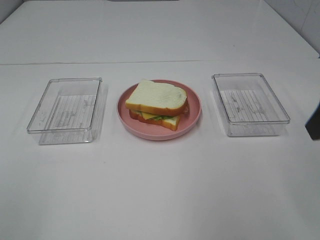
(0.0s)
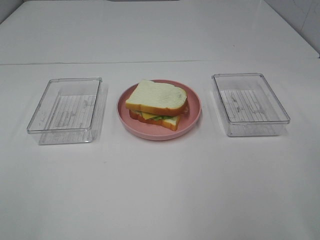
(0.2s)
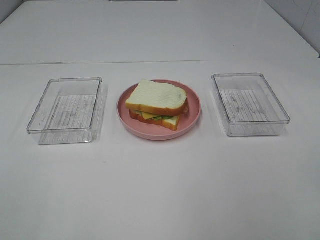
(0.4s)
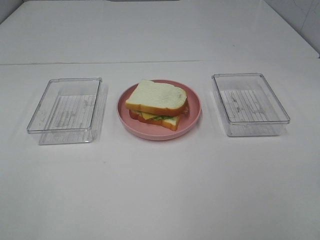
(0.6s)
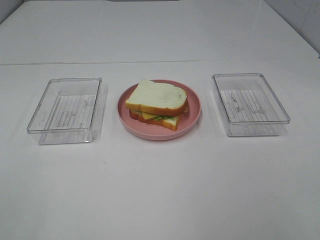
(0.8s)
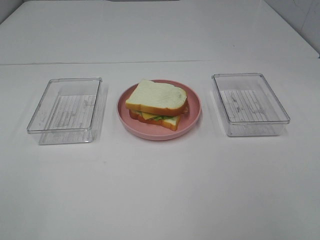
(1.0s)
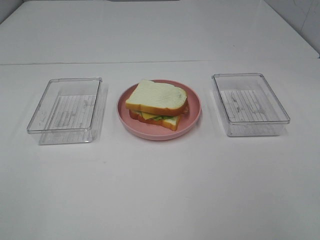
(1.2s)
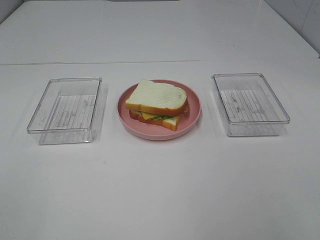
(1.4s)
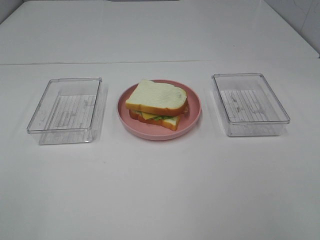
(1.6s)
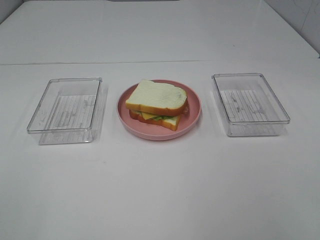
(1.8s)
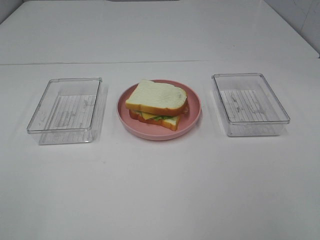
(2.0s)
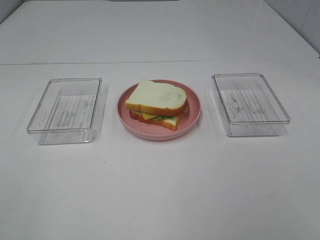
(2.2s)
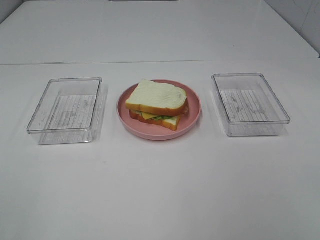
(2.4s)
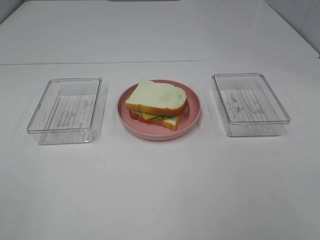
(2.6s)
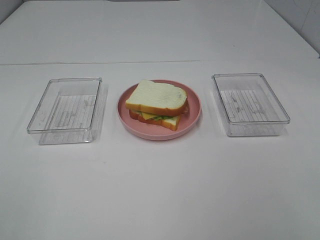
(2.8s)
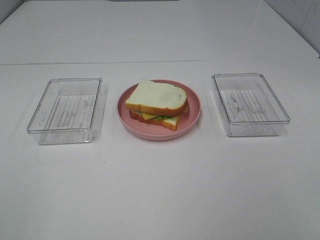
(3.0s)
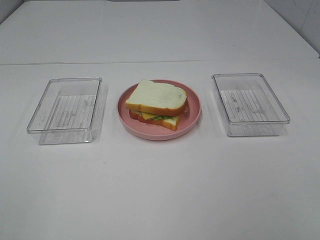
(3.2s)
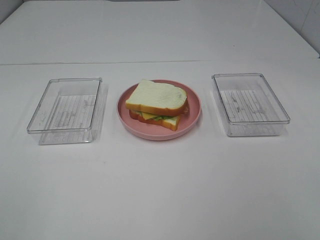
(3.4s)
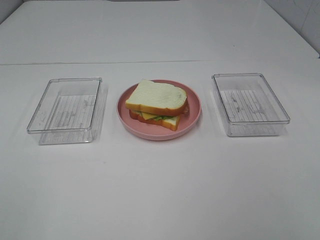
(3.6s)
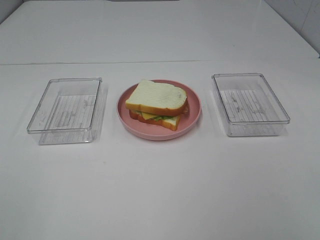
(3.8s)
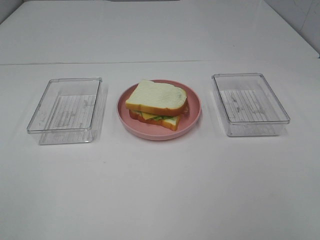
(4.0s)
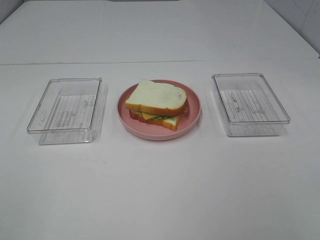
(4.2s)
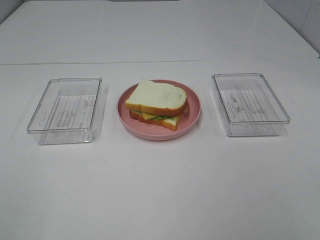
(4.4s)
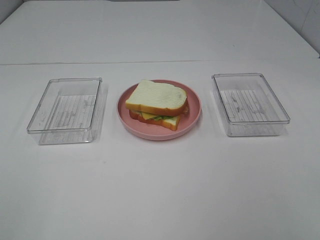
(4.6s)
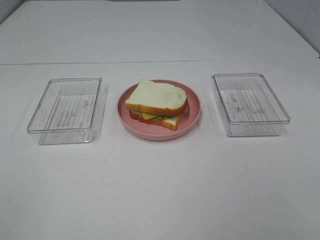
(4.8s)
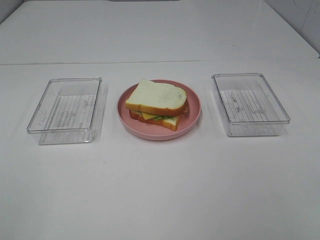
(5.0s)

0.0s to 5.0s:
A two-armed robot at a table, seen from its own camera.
Task of the whole recording: Make sandwiches.
3.4s to 5.0s: The two grippers keep their place.

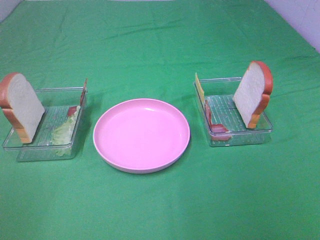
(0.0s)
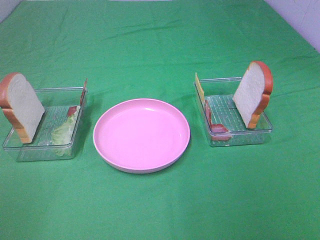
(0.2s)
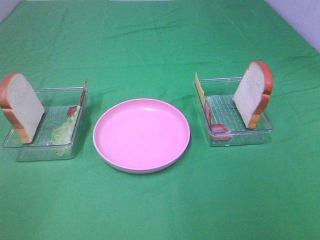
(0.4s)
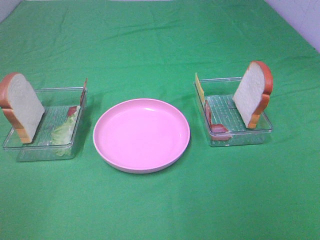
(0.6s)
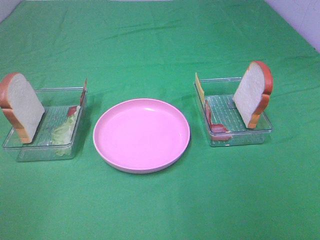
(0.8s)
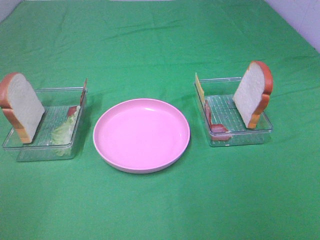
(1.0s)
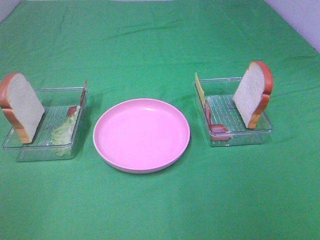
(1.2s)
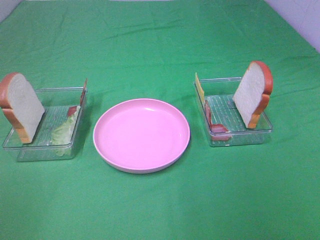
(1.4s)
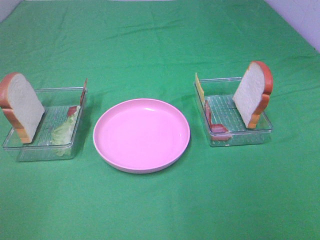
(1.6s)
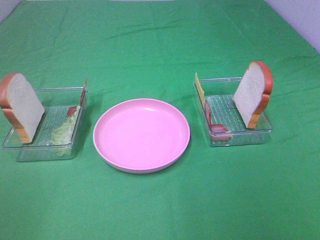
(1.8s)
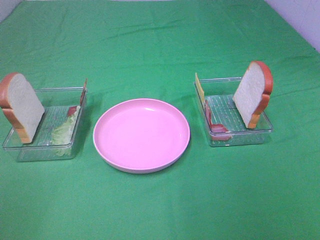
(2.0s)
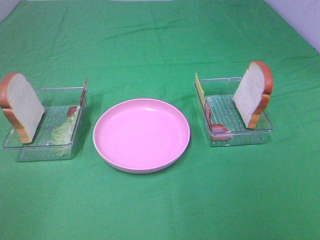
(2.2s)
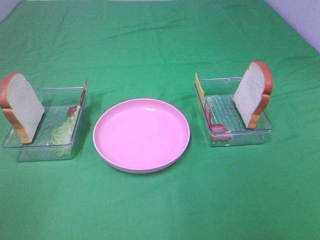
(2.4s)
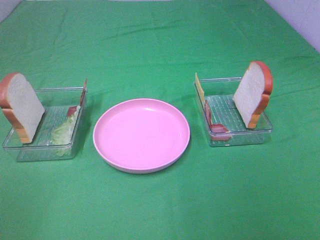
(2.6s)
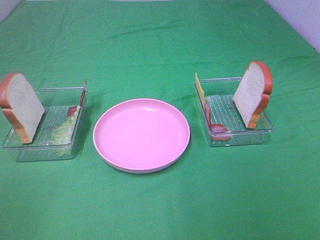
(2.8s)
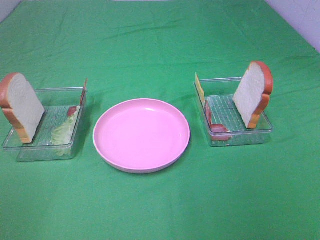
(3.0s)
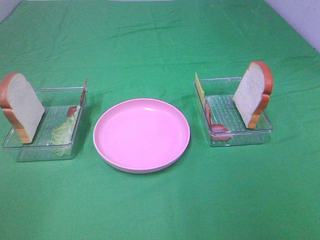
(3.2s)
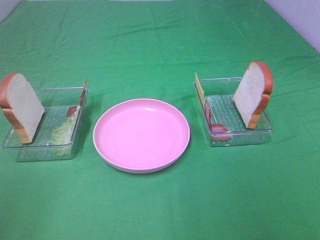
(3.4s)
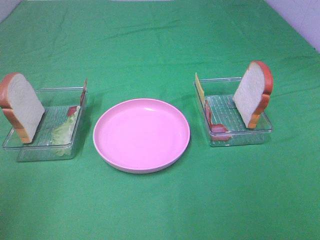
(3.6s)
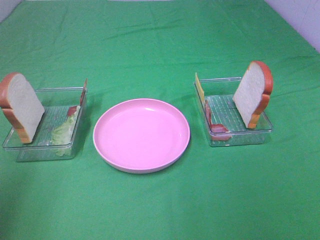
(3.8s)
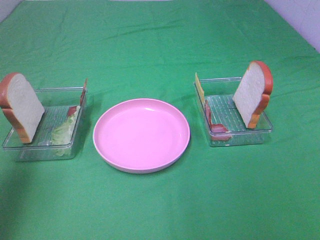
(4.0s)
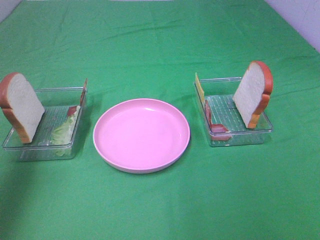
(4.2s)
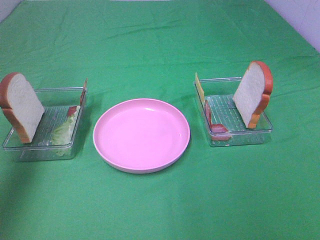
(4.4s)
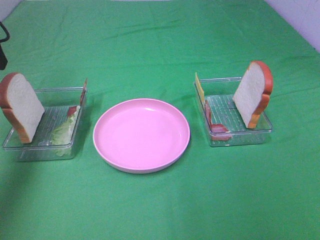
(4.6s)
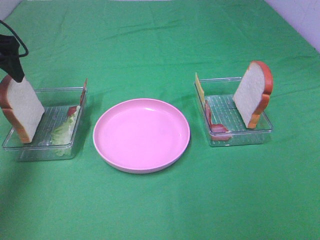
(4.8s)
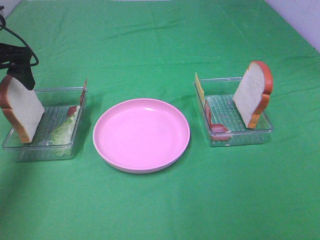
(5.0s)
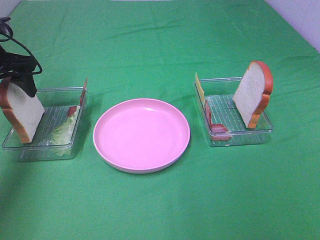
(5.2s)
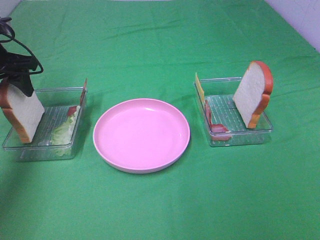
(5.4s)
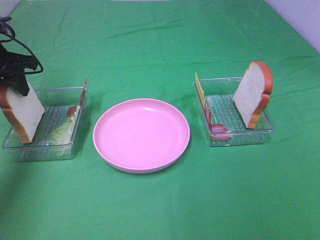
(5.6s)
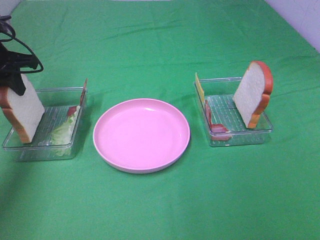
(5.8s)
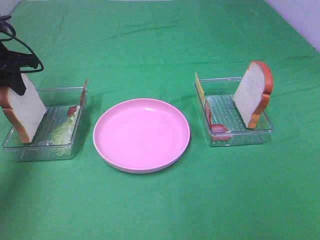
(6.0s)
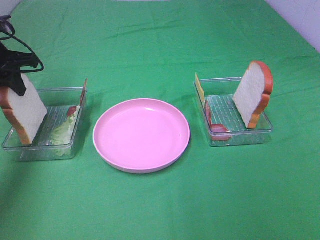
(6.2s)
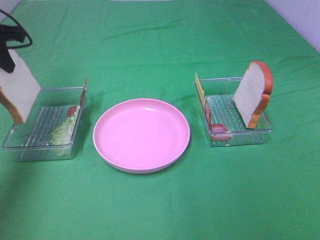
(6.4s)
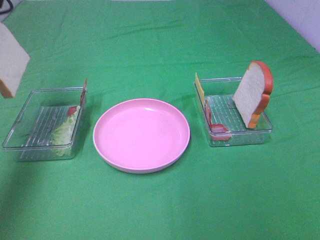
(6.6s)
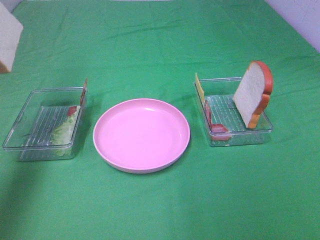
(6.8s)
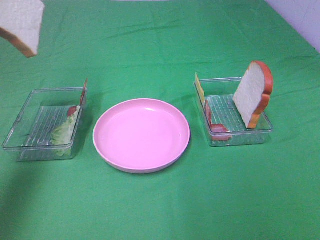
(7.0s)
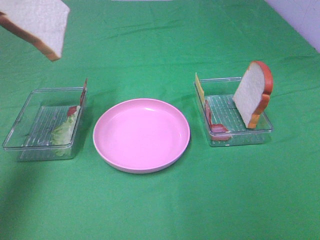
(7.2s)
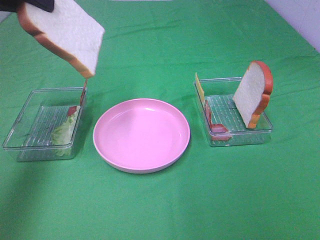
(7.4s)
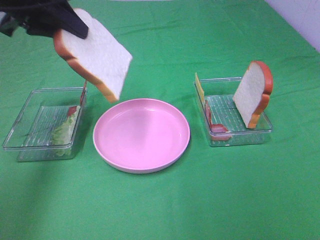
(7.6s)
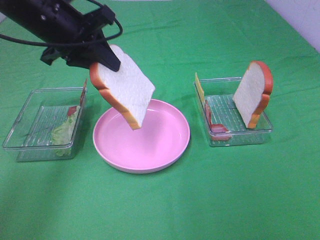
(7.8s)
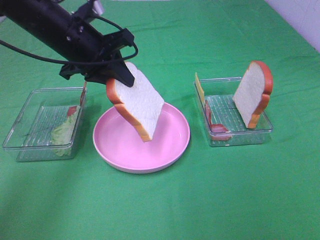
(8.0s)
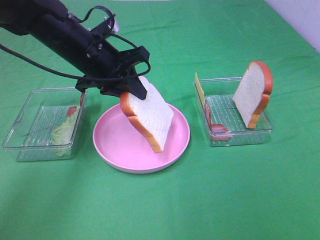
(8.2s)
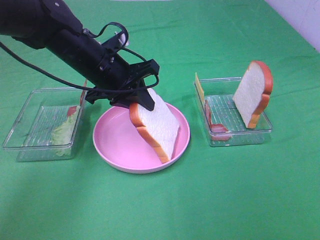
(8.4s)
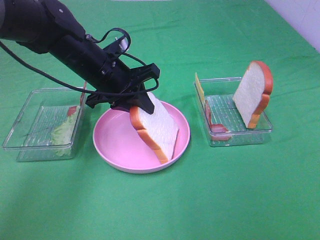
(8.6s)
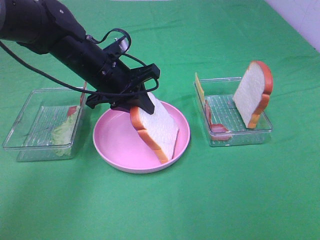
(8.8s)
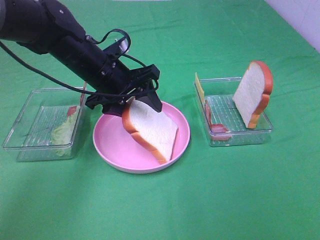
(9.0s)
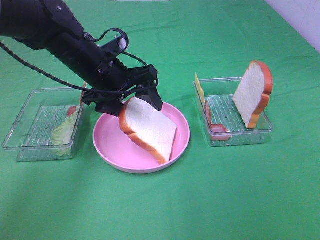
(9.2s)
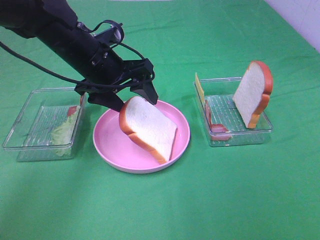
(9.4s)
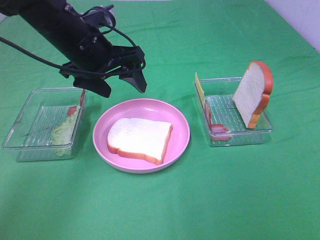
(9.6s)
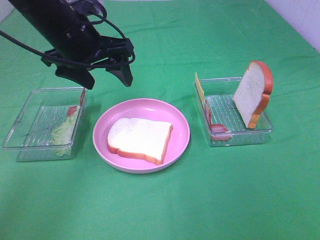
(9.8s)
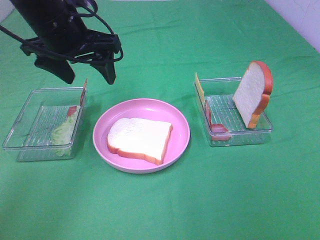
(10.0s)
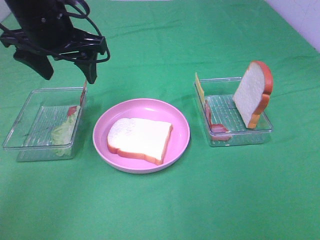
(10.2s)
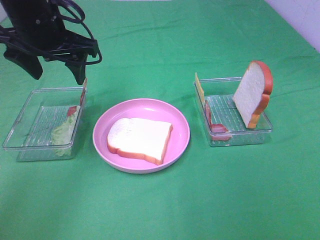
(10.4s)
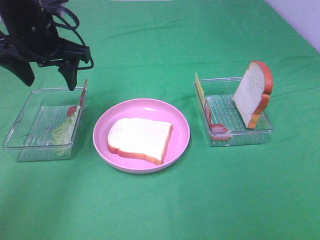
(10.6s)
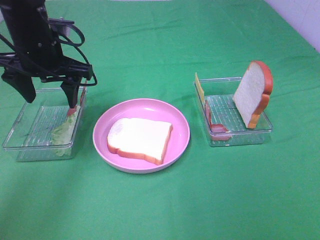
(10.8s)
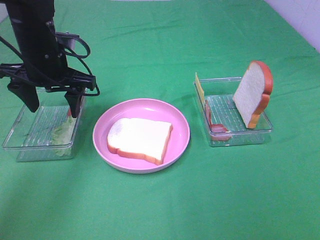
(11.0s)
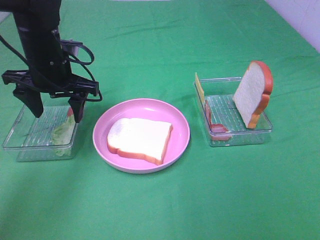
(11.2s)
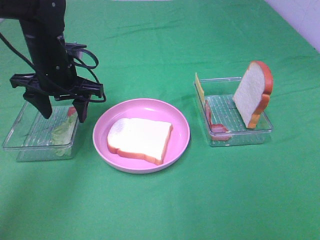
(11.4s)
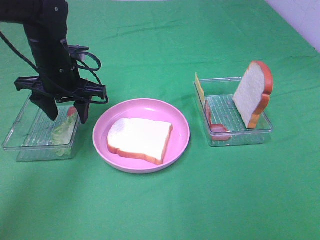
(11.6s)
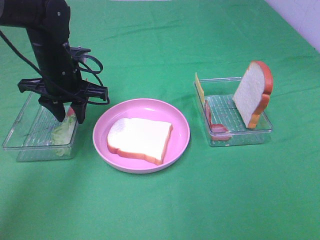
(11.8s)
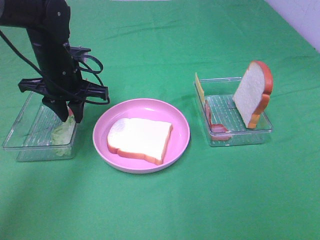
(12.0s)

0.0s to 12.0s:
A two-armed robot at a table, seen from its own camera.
Task of the whole recording: Make sandwiches.
Step, 0.0s to 6.0s: Left hand:grab the bread slice.
Step, 6.2s to 9.6s: Left hand:place the bread slice on the plate.
0.0s to 3.0s: The two grippers keep their place.
3.0s to 4.4s: The left gripper is displaced forward by roughly 30 cm.
4.4s to 6.0s: The left gripper moves downward and forward, approximately 15 cm, and closes.
6.0s to 7.6s: The left gripper is displaced upward, to the right and backward by roughly 15 cm.
7.6s to 9.0s: The left gripper goes some 20 cm downward and to the right, and opens up.
9.0s to 10.4s: The left gripper is displaced upward and to the left by approximately 10 cm.
10.4s to 12.0s: The left gripper is displaced downward by approximately 10 cm, and closes.

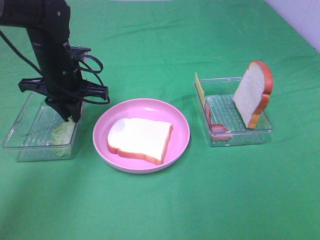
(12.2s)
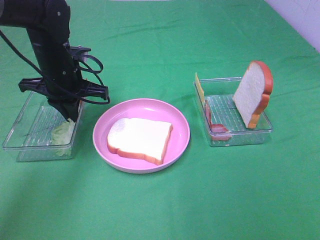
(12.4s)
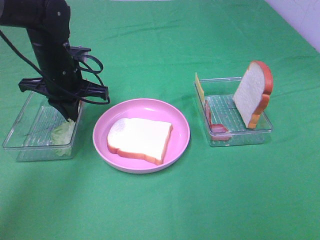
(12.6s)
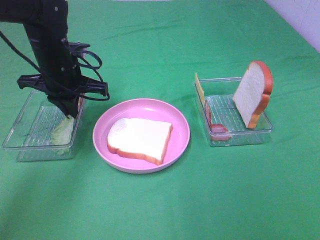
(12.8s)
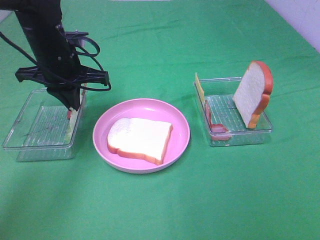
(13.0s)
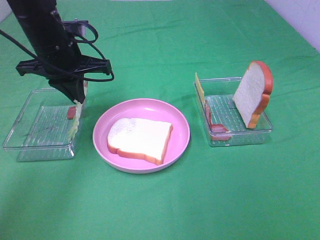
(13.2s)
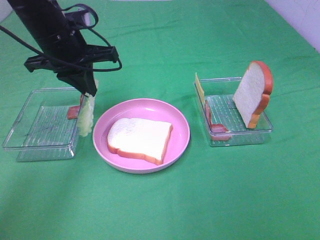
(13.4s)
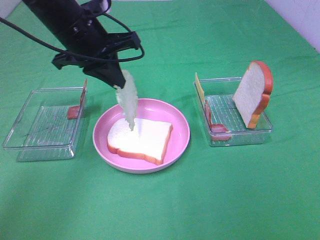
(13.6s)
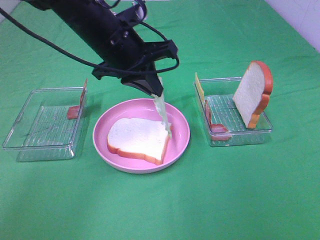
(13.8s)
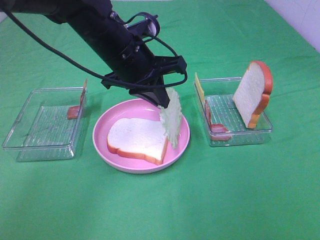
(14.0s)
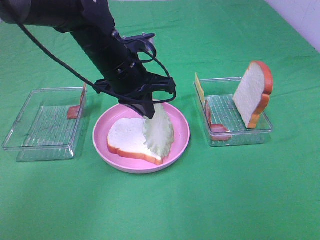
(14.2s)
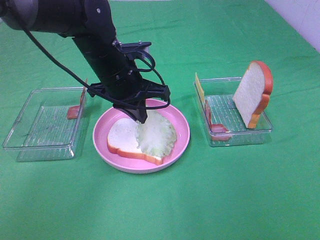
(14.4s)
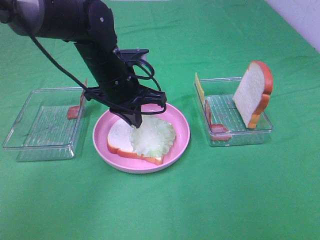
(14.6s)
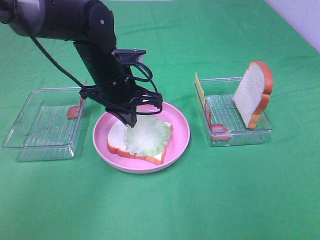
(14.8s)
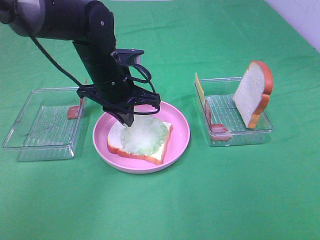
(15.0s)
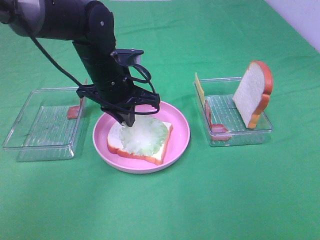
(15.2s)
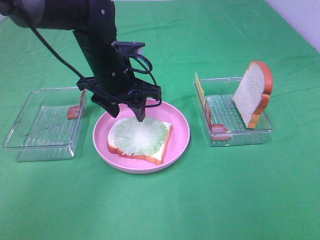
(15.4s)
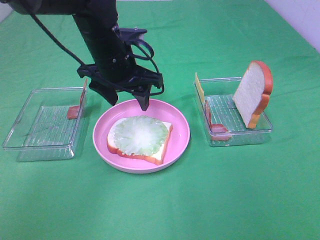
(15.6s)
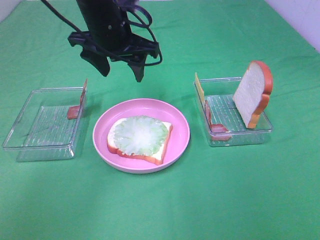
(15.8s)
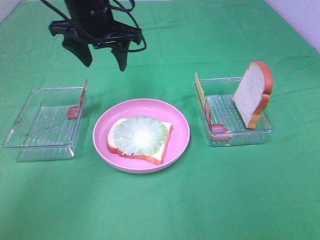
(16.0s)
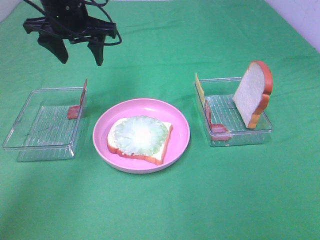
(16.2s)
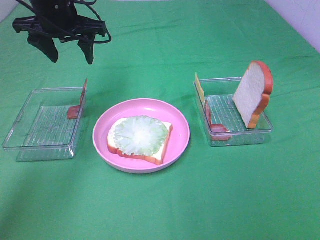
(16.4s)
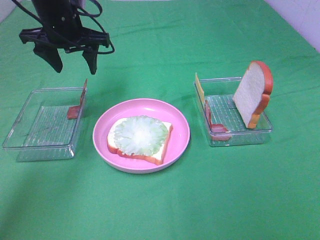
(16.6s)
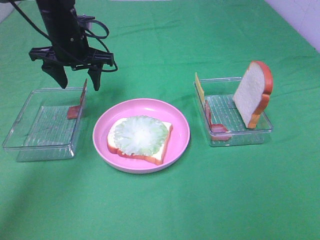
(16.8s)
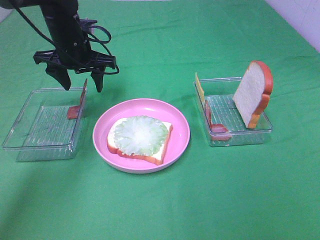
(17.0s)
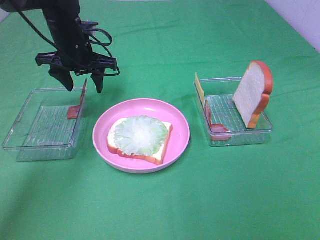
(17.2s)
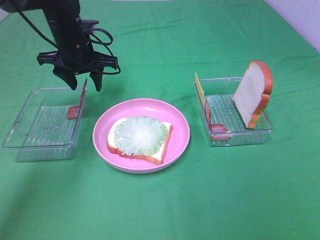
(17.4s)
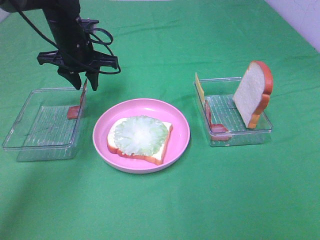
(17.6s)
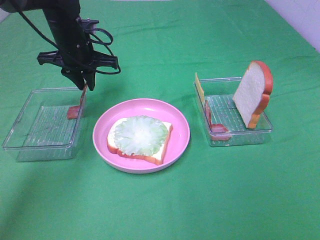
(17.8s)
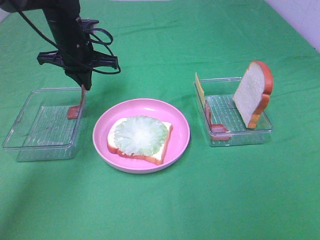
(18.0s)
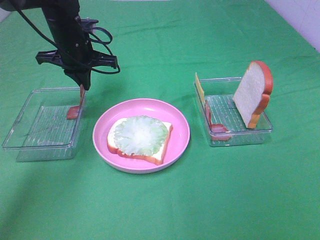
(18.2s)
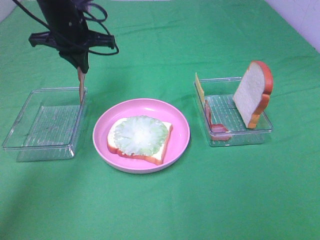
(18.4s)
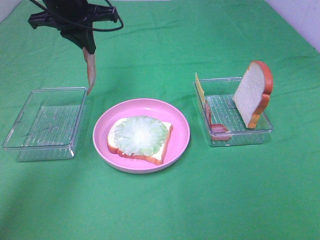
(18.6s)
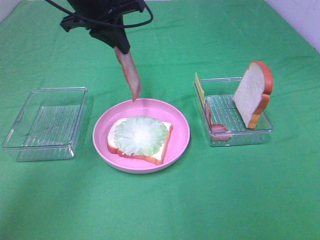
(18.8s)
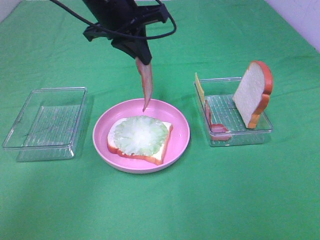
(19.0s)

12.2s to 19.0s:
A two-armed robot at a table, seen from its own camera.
Task of the whole recording: Make sandwiches.
Step, 12.8s to 15.4s: Left hand:place the lettuce slice on the bread slice.
Step, 15.6s to 18.2s: Left hand:grab the bacon.
12.2s to 13.6s: The left gripper travels upward and to the right by roughly 10 cm.
13.6s to 15.0s: The left gripper travels downward by approximately 10 cm.
15.0s to 16.2s: The left gripper heads upward, to the left and forward, covering roughly 15 cm, and opens.
16.2s to 17.6s: The left gripper shifts some 10 cm downward, and closes its fingers.
17.6s to 19.0s: The left gripper heads upward, to the right and backward, covering about 15 cm, and closes.
